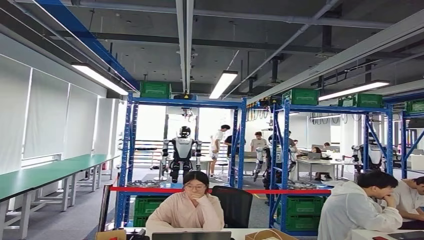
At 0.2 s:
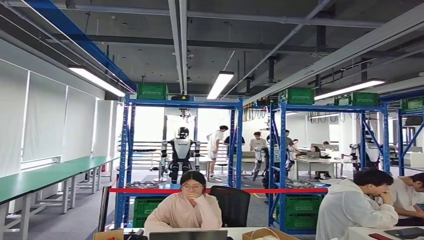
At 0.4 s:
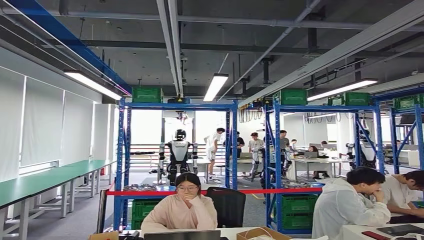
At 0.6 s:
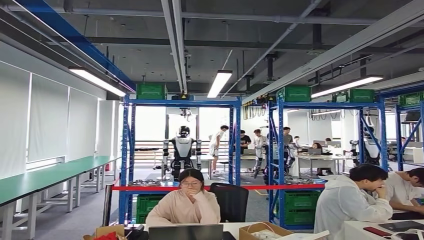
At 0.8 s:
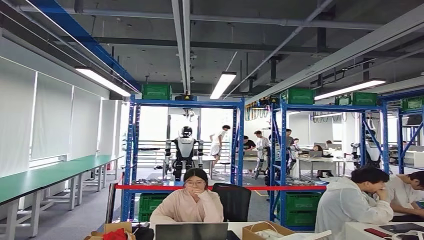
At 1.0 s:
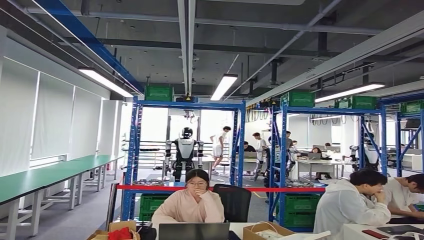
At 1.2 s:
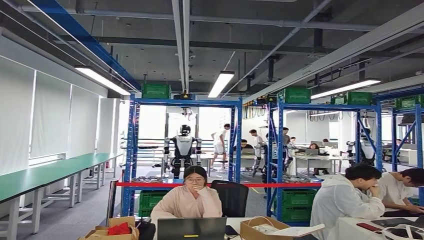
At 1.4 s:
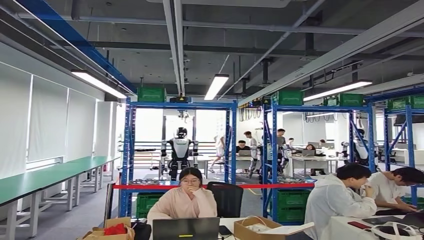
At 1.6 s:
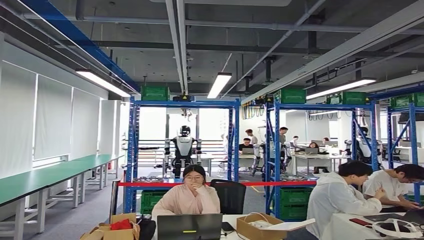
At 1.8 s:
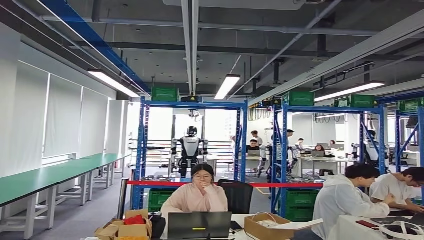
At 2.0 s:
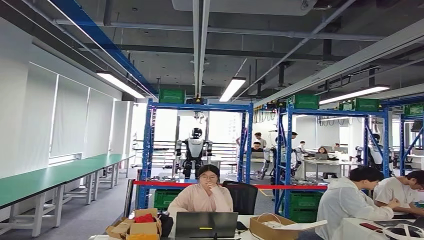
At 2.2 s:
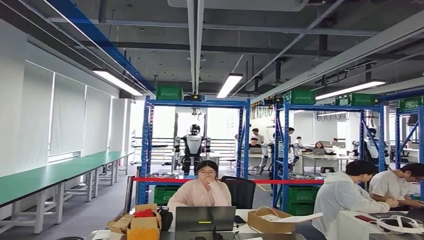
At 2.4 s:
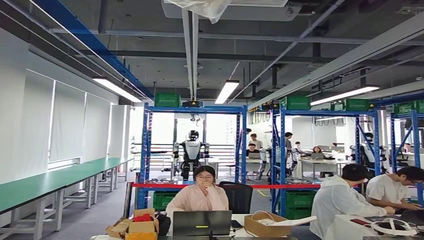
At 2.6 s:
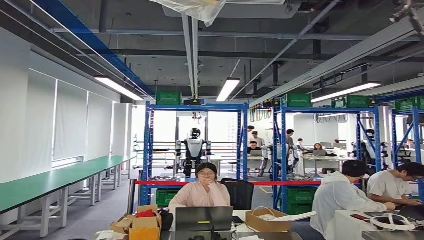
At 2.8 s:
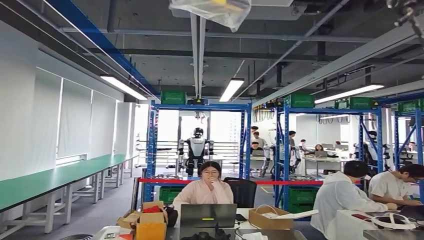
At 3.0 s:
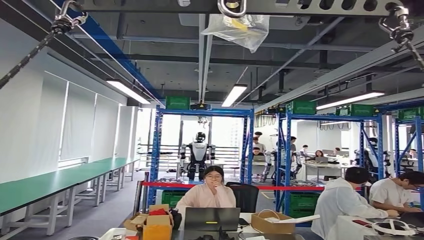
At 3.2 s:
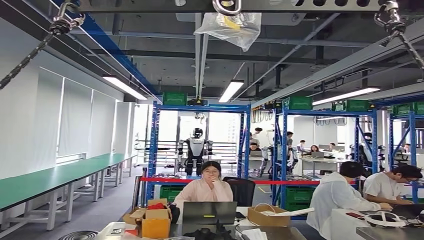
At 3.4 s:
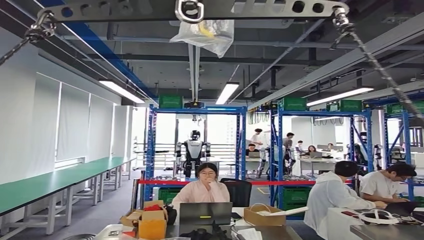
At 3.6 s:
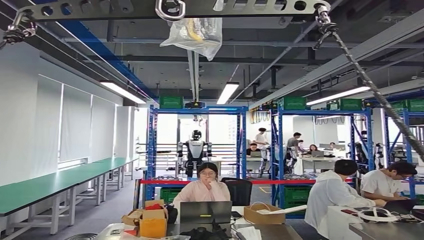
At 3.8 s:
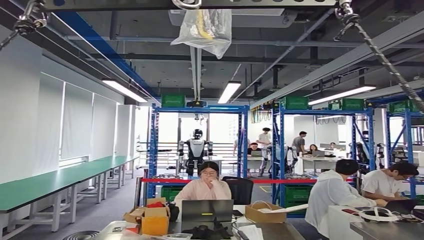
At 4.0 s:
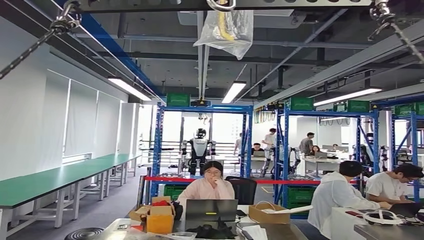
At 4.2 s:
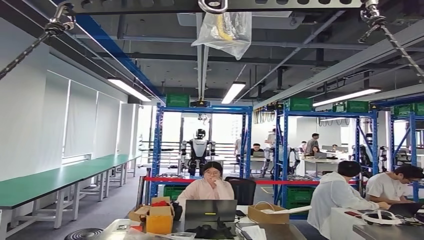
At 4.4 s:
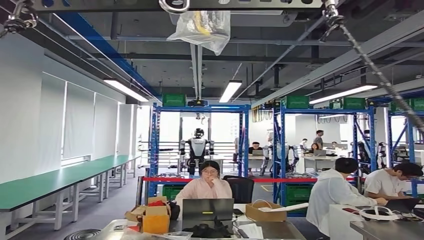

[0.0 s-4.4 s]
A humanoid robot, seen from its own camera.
Step, 0.2 to 4.4 s: Return to the initial position at the workbench.
